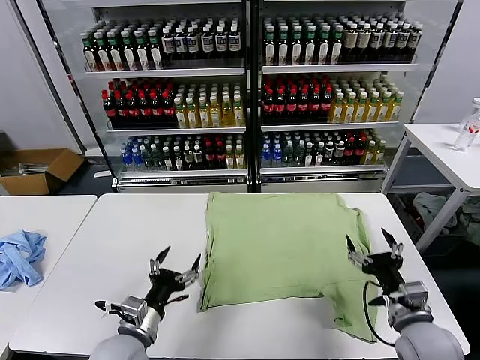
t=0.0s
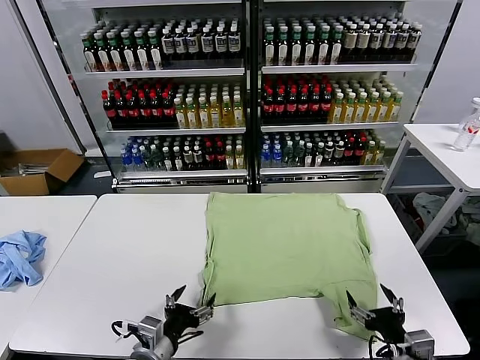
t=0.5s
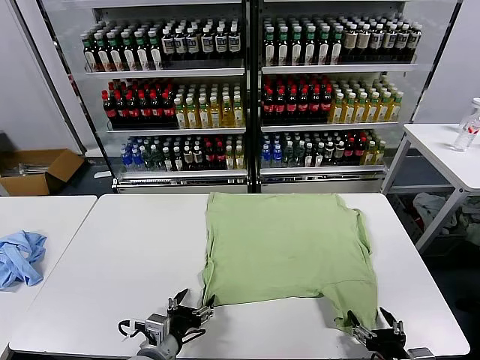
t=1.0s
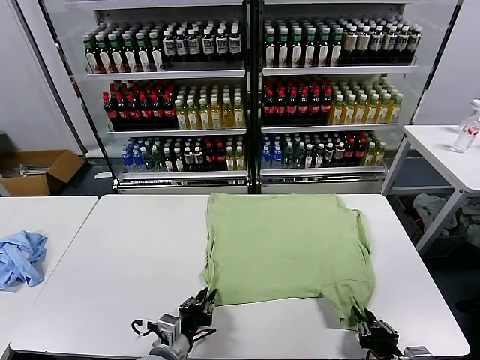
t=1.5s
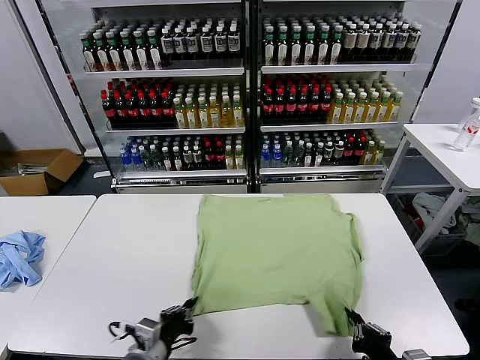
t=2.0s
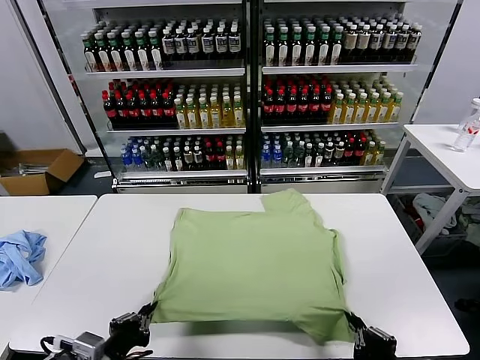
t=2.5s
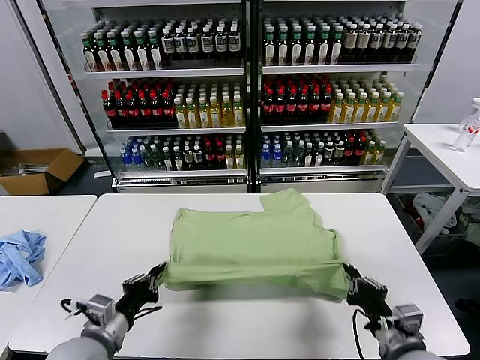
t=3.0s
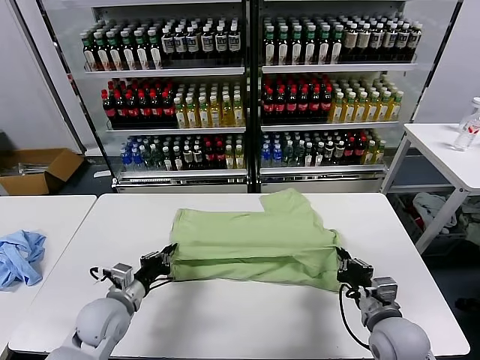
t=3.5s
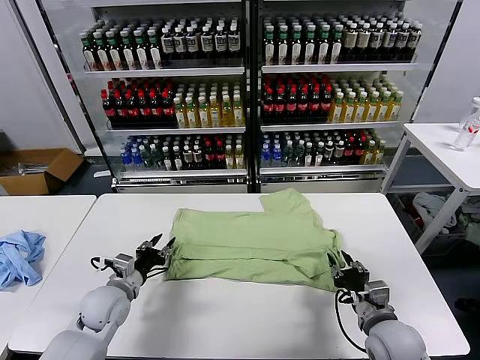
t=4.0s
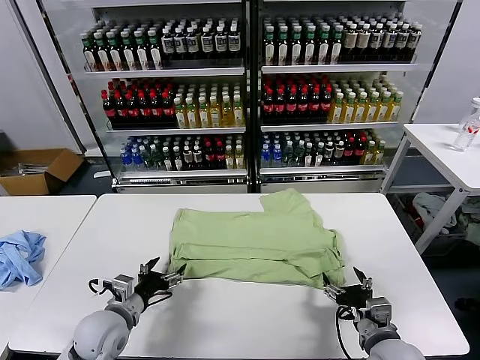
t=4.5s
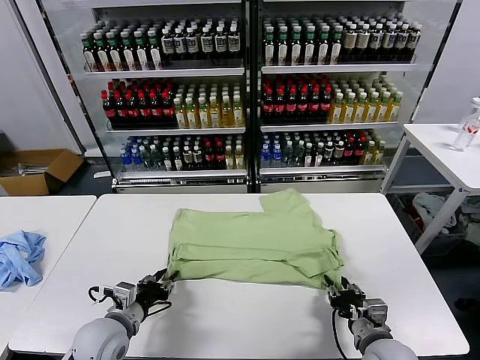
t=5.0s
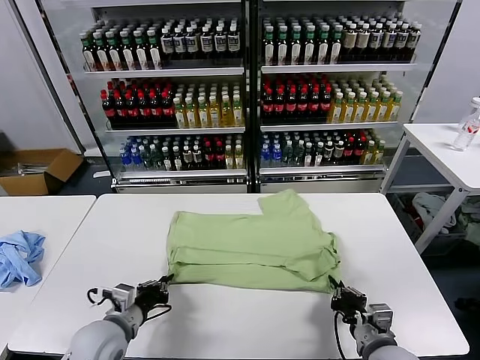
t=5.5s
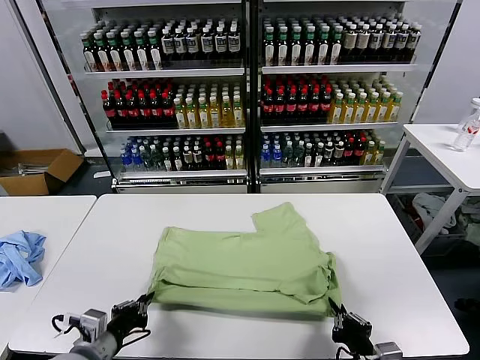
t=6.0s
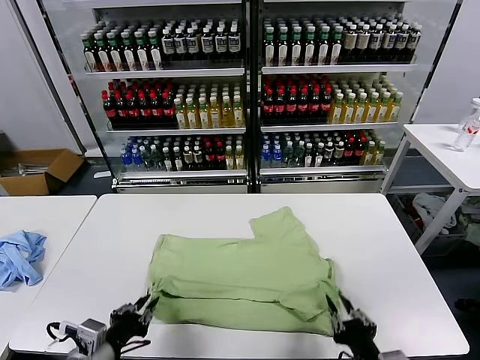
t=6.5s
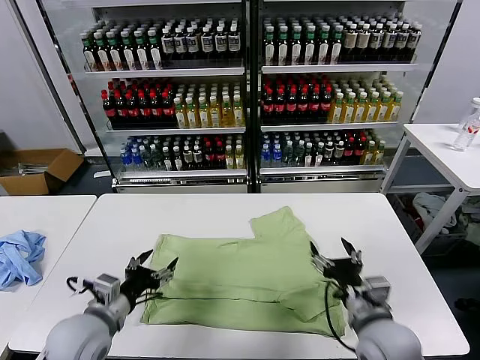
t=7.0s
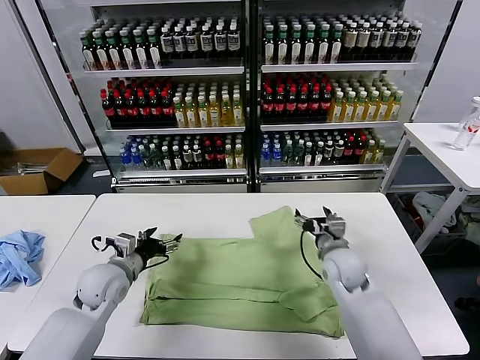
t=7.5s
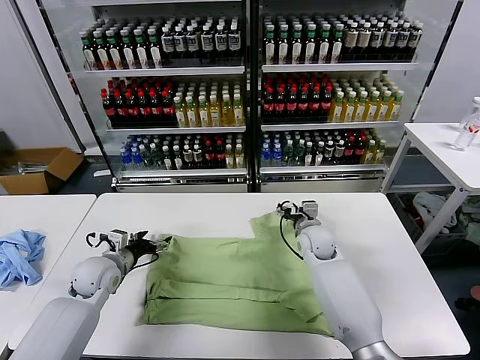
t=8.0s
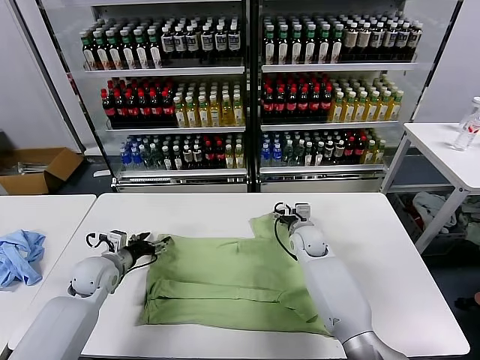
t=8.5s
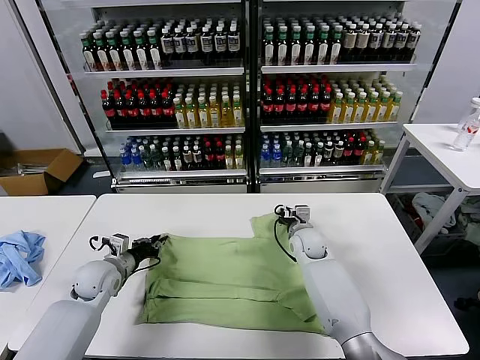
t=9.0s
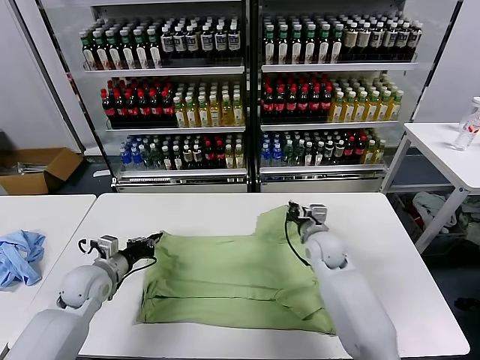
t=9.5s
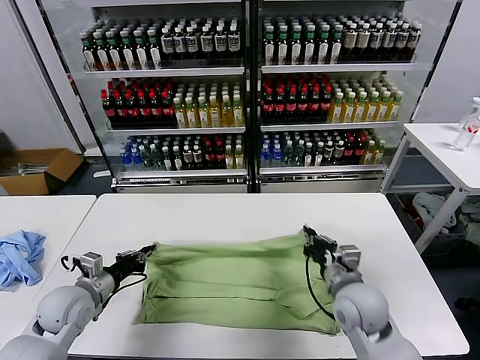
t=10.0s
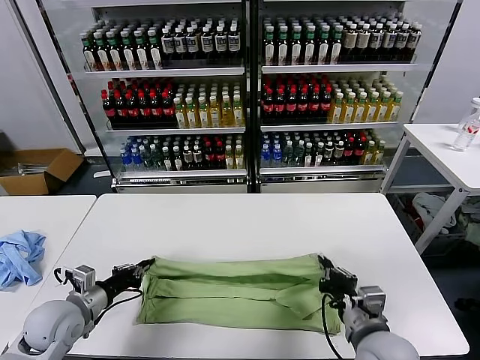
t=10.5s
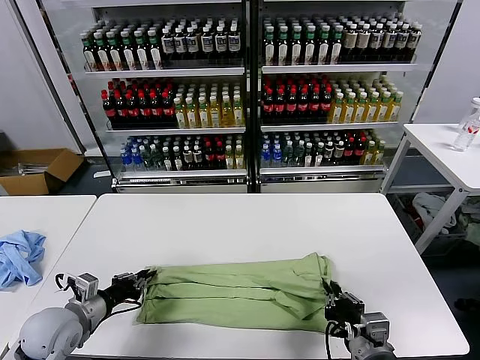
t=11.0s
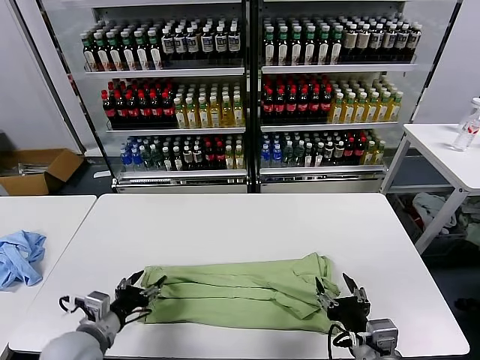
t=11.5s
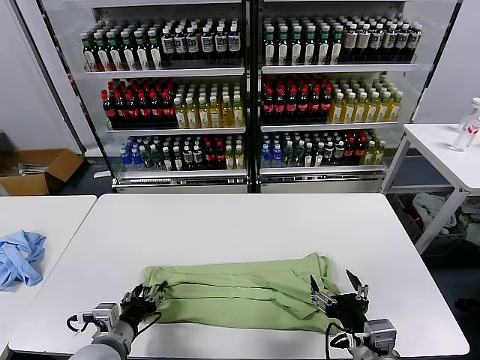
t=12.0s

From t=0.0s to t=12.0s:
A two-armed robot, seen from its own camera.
Task of the whole recording: fold and organize the clothes.
Step, from t=0.0s to t=1.5s: use both grippers simultaneously to clamp the lower edge of the clothing fabric.
Step, from t=2.0s to t=3.5s: use both grippers to drag the lower edge of the fabric forward and fold it over the upper edge.
Step, from t=4.0s to t=6.0s: Drag the clothes downward with both gripper.
Step, from t=7.0s to t=9.0s: use both grippers simultaneously to clamp the upper edge of the clothing fabric.
Step, from t=9.5s to t=11.0s: use both grippers to drag the upper edge of the fabric backward and fold it over the lower edge.
From t=2.0s to t=4.0s: The left gripper moves forward and to the left, approximately 20 cm, and opens up. Meanwhile the right gripper travels forward by some 15 cm, and opens its fingers.
From t=4.0s to t=6.0s: The two grippers go about 15 cm backward. The left gripper closes. Meanwhile the right gripper closes.
From t=6.0s to t=8.0s: The left gripper is displaced forward by some 20 cm, and opens up, while the right gripper goes approximately 40 cm forward, and opens its fingers.
From t=8.0s to t=10.0s: The right gripper travels backward by some 20 cm, and closes. Meanwhile the left gripper travels backward by some 10 cm, and closes.
From t=10.0s to t=12.0s: The left gripper heads backward and to the right, covering roughly 15 cm, and opens up, while the right gripper is displaced backward by roughly 15 cm, and opens.

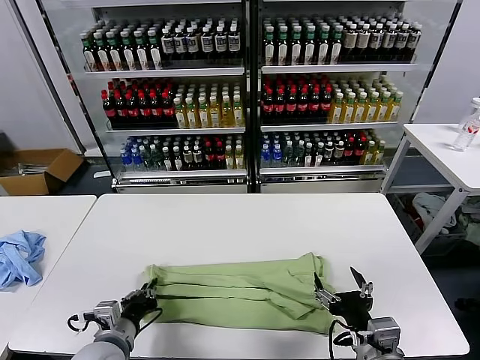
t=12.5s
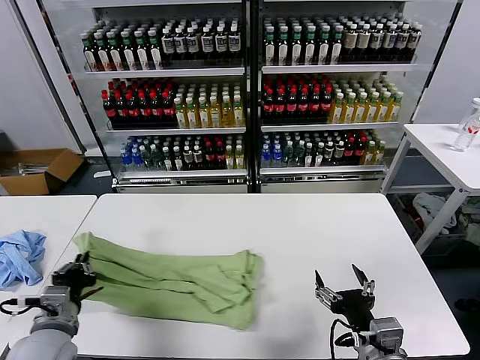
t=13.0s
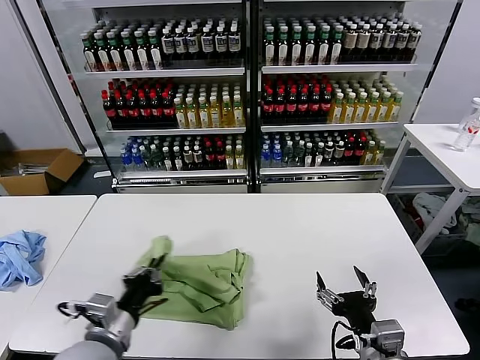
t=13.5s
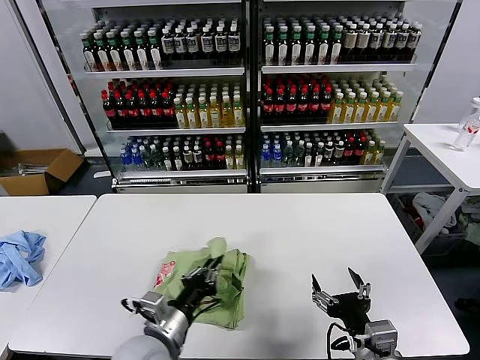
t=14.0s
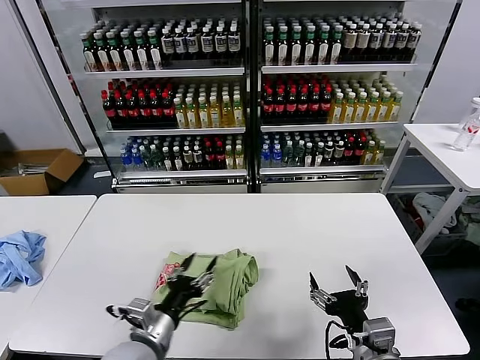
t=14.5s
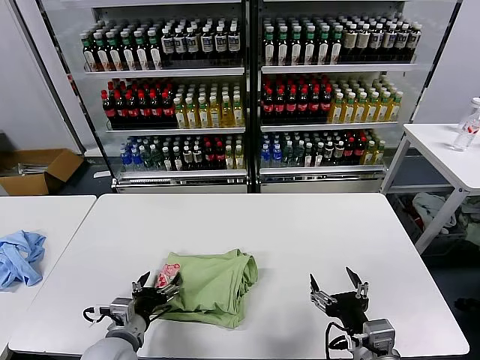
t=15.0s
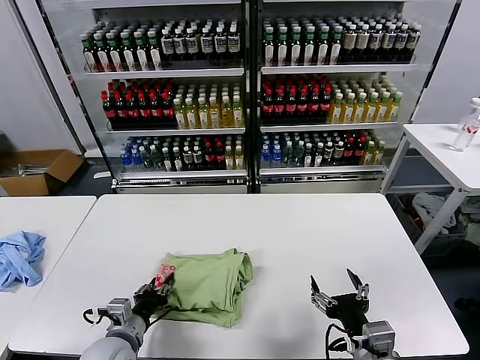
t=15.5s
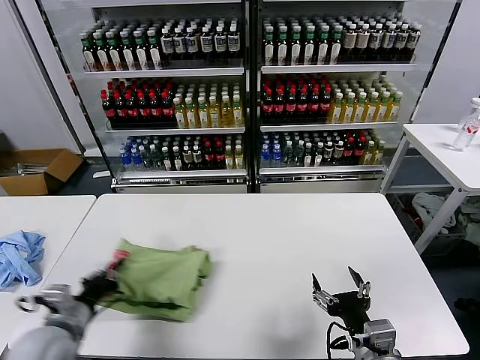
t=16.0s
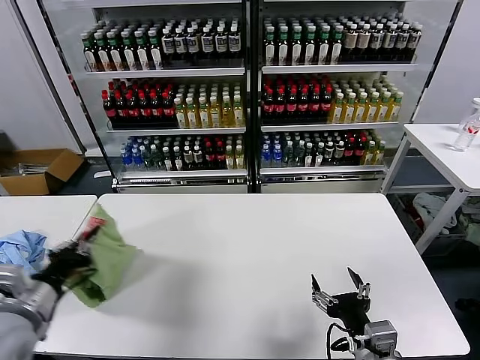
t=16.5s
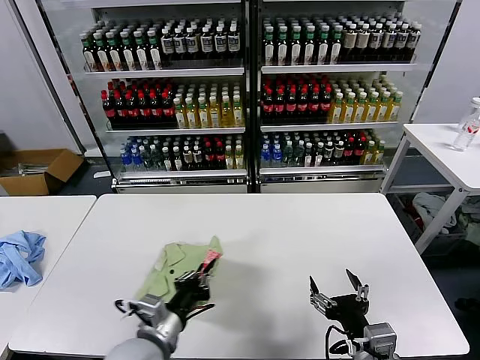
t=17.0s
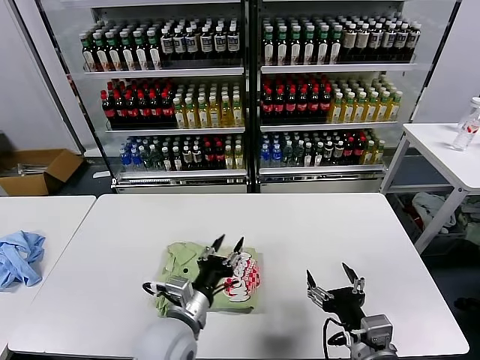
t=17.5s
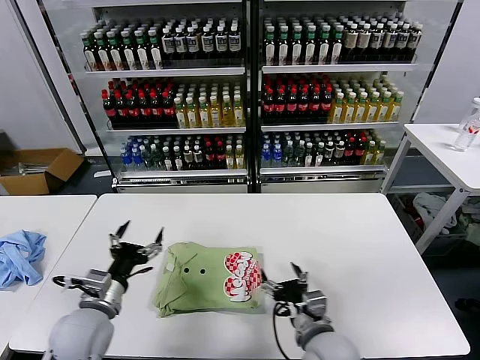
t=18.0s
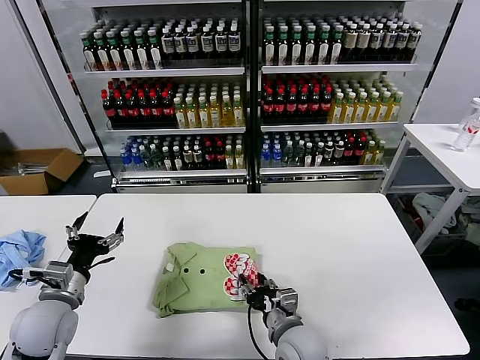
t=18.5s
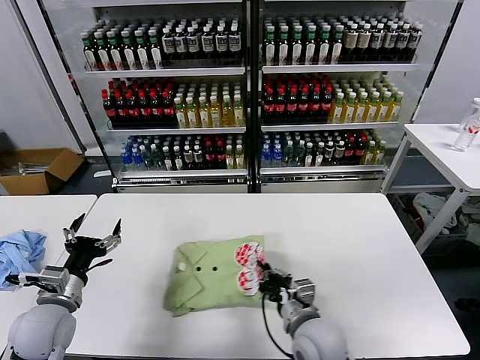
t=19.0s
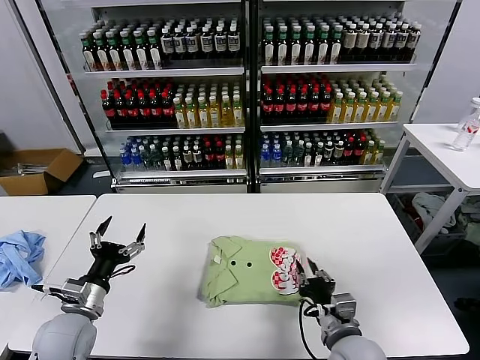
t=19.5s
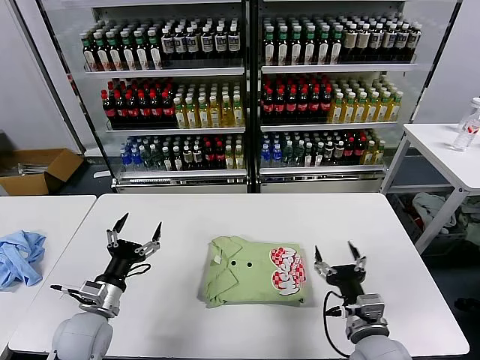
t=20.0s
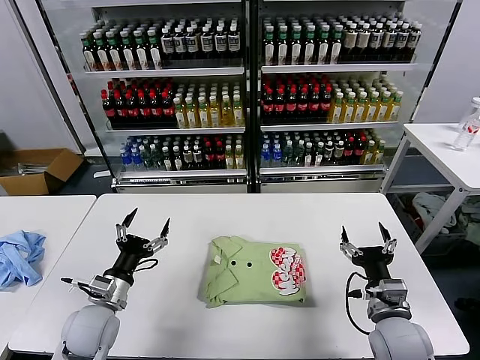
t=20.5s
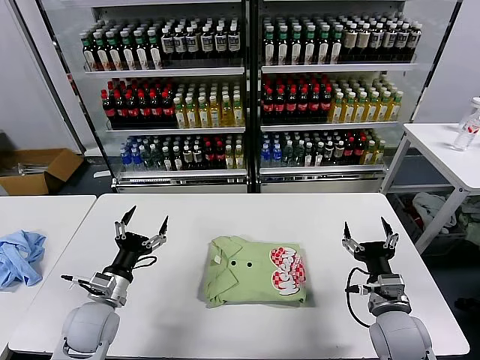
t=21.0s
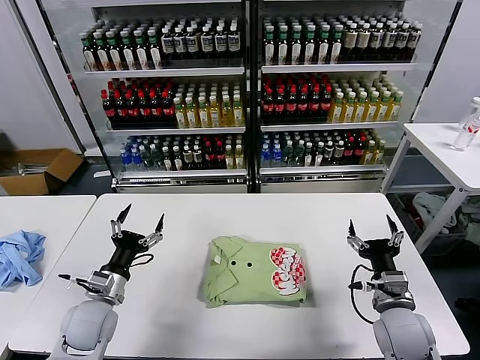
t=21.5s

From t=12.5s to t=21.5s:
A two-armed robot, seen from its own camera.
Task of the whole recording: fold and organize the clothes.
Step, from t=12.5s to t=14.0s: use the left gripper to drag the left edge of the fabric to the left and folds it over the right edge.
Step, from t=14.5s to t=17.0s: Flip the folded clothes over with left gripper.
Step, from t=17.5s to t=19.5s: Drag the clothes to the center of the table.
From t=12.5s to t=14.5s: The left gripper is displaced to the right by approximately 10 cm, and opens up.
From t=14.5s to t=17.0s: The left gripper travels to the left and back again, roughly 20 cm each way, and closes its fingers.
From t=17.0s to t=19.5s: The right gripper travels forward and downward by some 10 cm, goes to the left and returns, some 10 cm each way, and closes its fingers, while the left gripper moves to the left, roughly 15 cm, and opens up.
From t=19.5s to t=21.5s: The right gripper goes approximately 10 cm to the right, and opens its fingers.

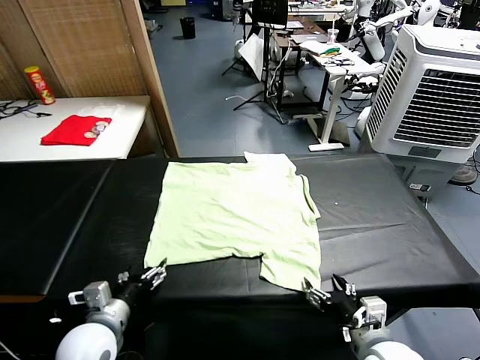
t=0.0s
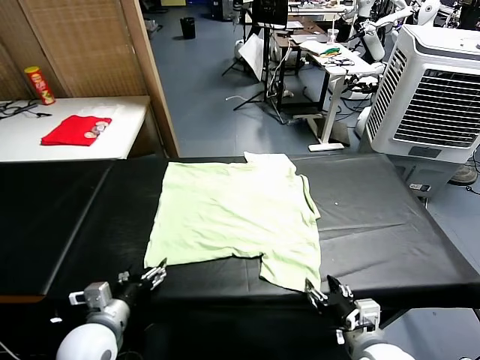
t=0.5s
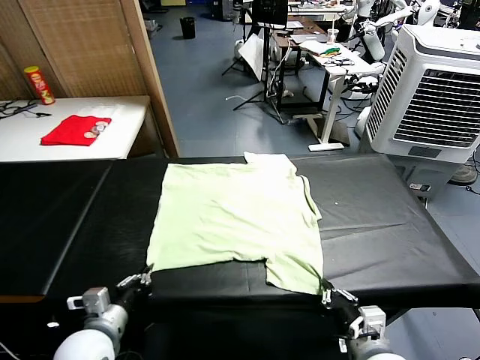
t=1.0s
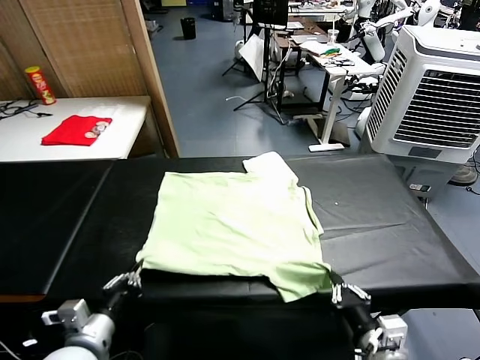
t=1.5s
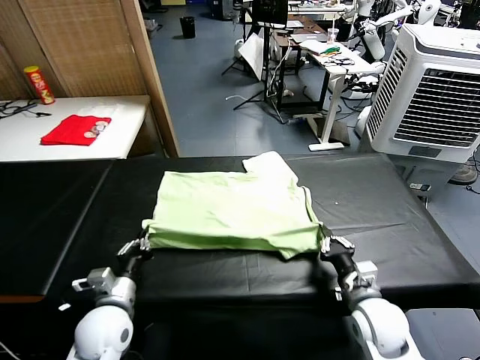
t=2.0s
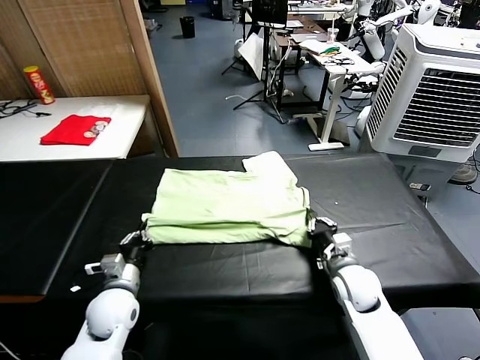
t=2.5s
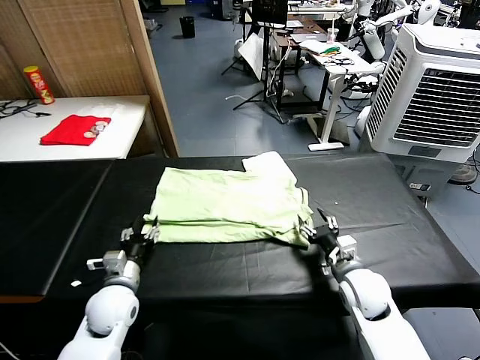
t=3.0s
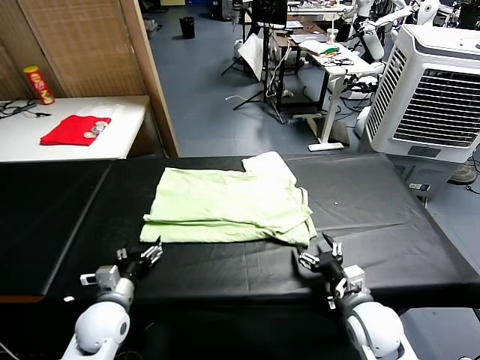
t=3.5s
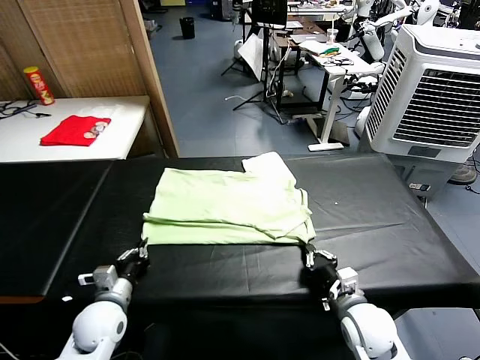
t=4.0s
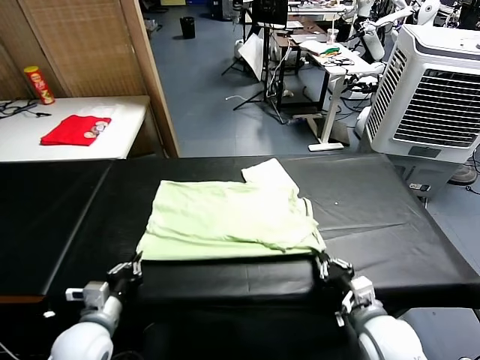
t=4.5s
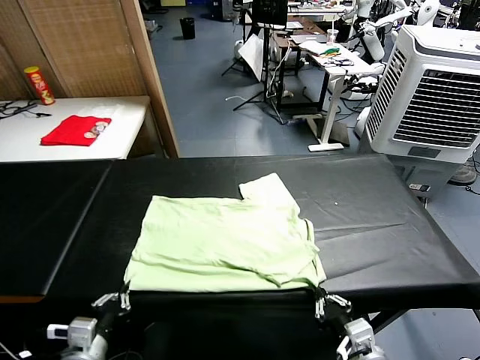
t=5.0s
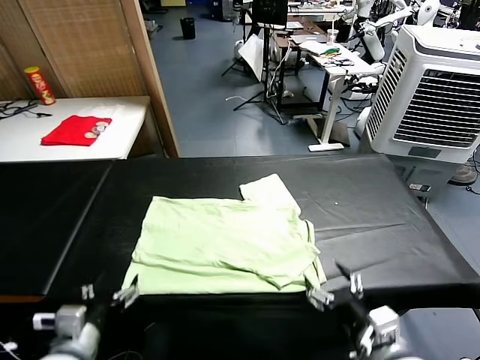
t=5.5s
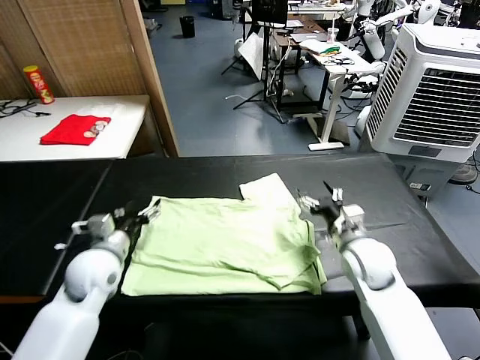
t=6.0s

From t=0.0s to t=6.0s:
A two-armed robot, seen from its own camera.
Task of the whole recording: fold and organize the clothes.
Step, from t=0.0s to t=0.5s: use both grippers simultaneously to clamp the lower edge of the clothing fabric.
Step, from t=1.5s to t=3.0s: use both grippers to drag the lower edge of the fabric forward and fold it over the upper edge.
Step, from t=3.5s to t=5.0s: Drag the clothes downward with both gripper.
From t=2.0s to t=4.0s: The left gripper opens and closes again; the right gripper travels backward by about 5 cm, and opens and closes again.
From t=4.0s to t=6.0s: The left gripper travels forward and upward by some 15 cm, and opens up, while the right gripper shifts about 20 cm forward, and opens its fingers.
